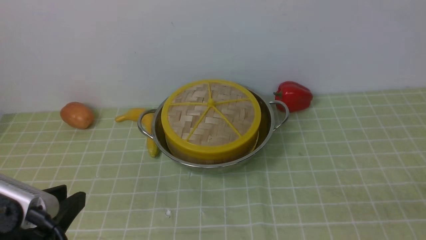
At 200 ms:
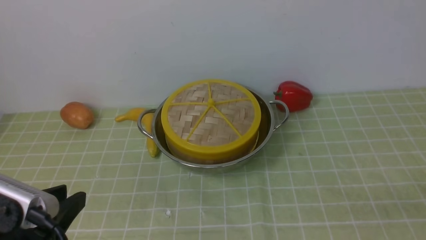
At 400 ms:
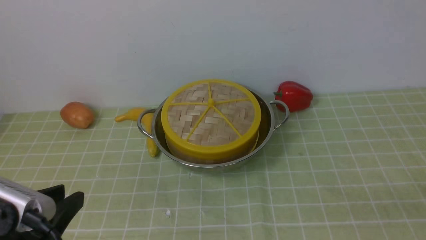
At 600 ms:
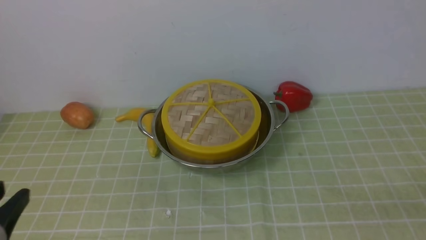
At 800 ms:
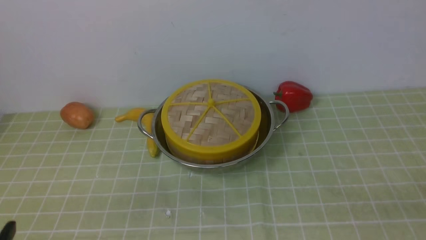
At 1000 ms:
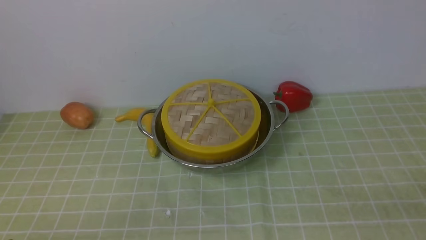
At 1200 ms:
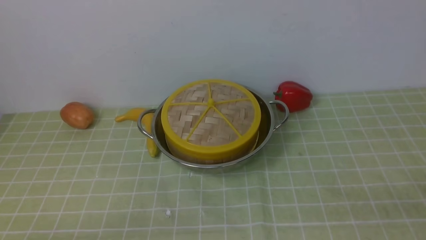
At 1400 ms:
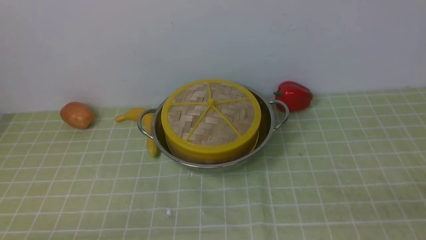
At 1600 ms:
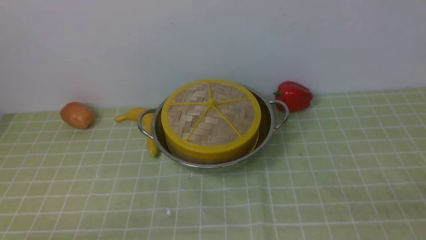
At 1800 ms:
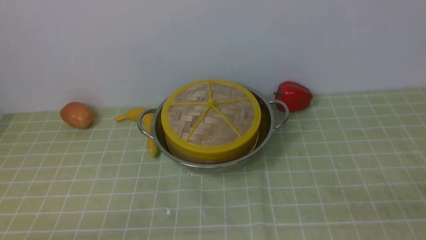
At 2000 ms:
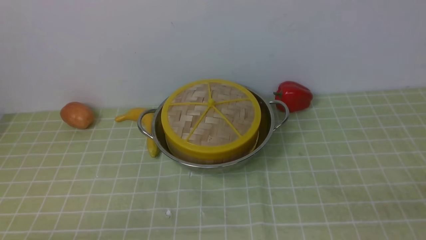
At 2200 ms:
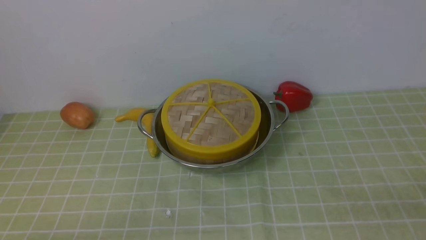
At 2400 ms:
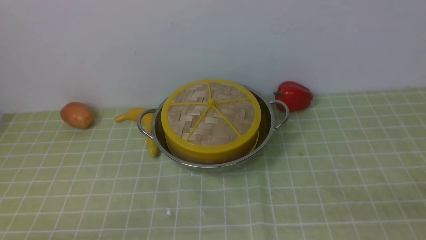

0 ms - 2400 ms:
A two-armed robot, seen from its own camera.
Task of the whole recording: place the steamer in the pot on the green tablecloth, and put the lid on the steamer.
0 ms - 1200 ms: The left gripper goes approximately 10 cm downward.
1200 ms - 2400 ms: The two grippers keep their place.
